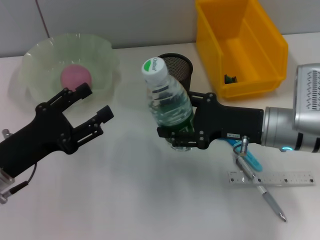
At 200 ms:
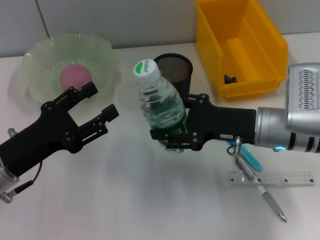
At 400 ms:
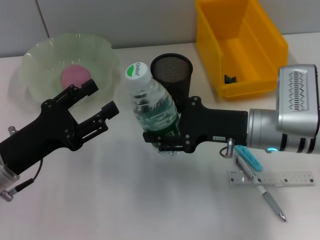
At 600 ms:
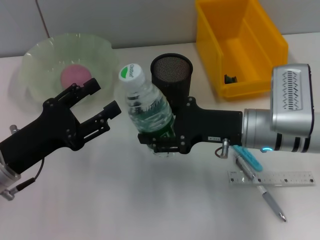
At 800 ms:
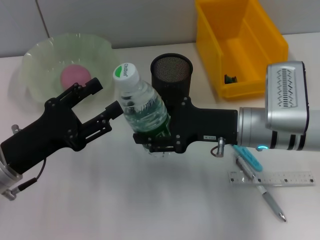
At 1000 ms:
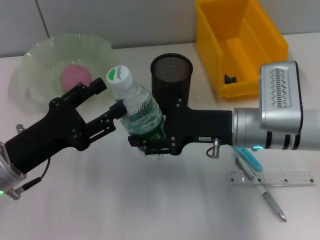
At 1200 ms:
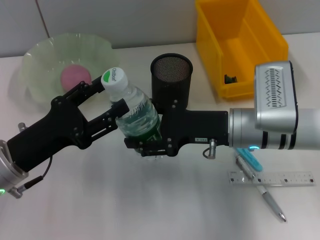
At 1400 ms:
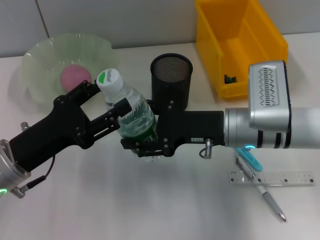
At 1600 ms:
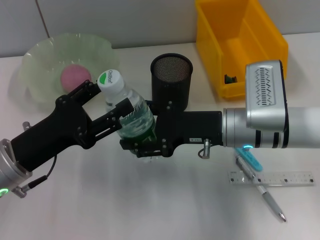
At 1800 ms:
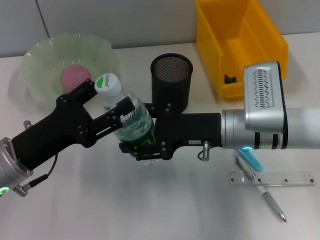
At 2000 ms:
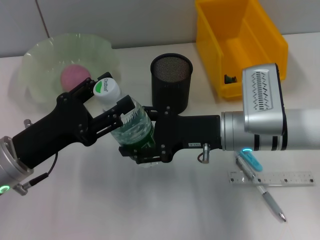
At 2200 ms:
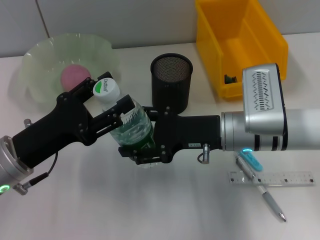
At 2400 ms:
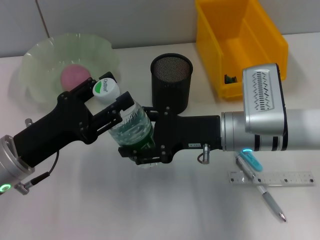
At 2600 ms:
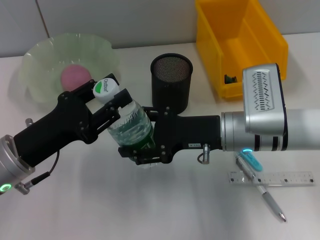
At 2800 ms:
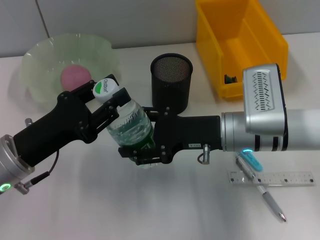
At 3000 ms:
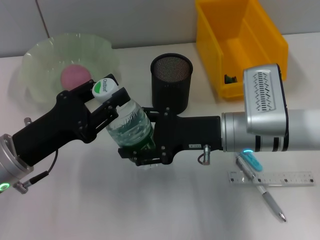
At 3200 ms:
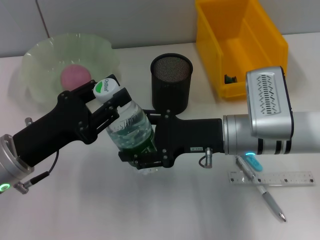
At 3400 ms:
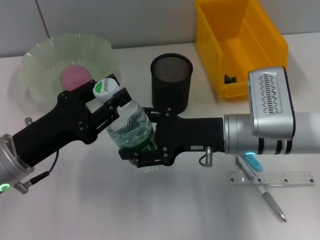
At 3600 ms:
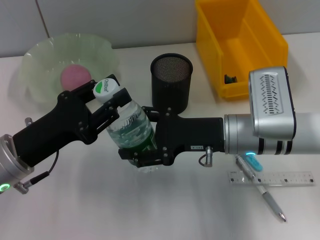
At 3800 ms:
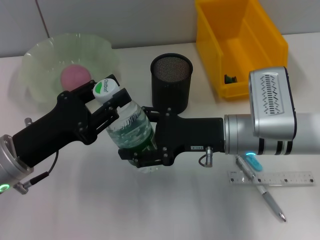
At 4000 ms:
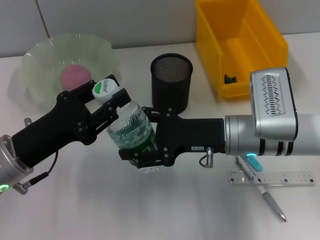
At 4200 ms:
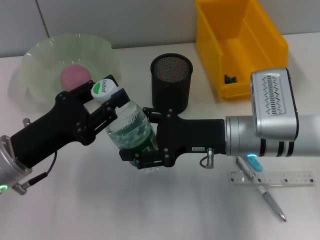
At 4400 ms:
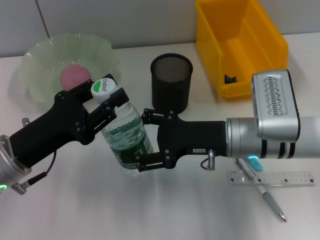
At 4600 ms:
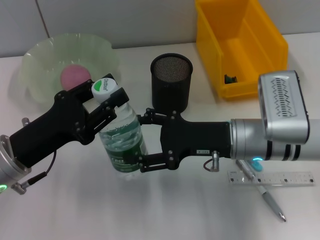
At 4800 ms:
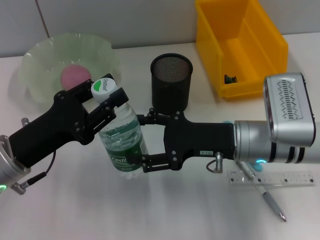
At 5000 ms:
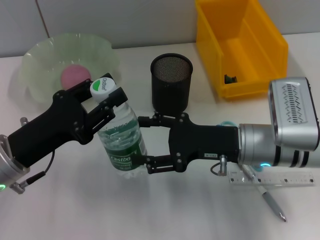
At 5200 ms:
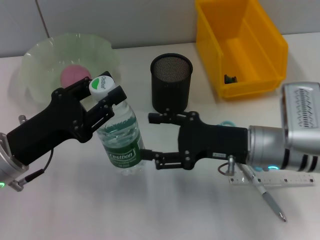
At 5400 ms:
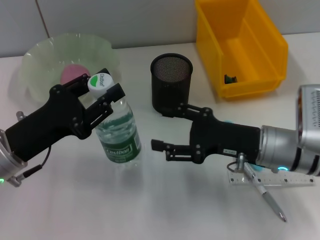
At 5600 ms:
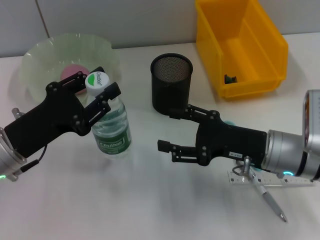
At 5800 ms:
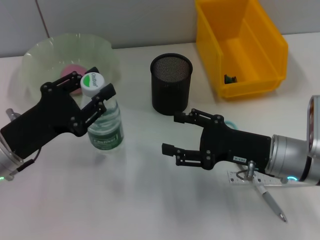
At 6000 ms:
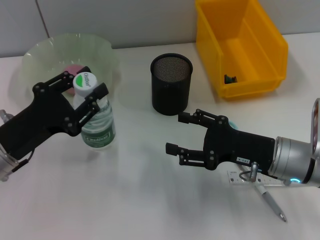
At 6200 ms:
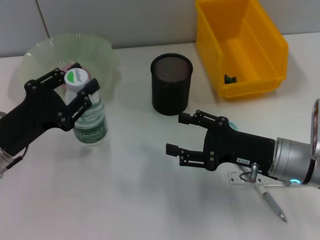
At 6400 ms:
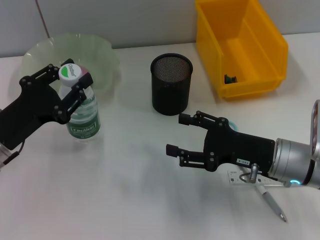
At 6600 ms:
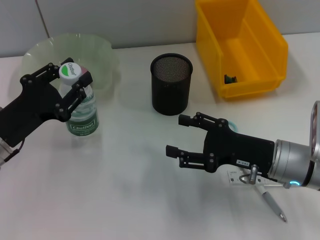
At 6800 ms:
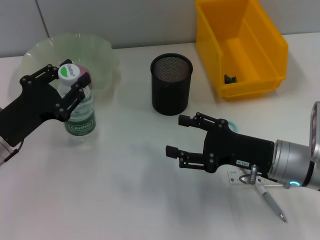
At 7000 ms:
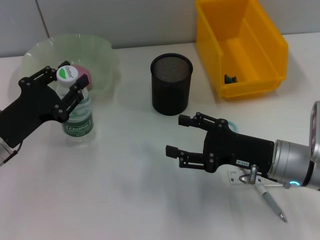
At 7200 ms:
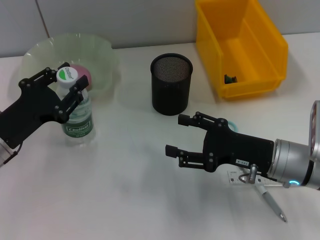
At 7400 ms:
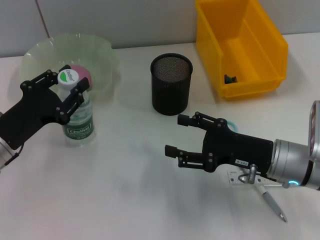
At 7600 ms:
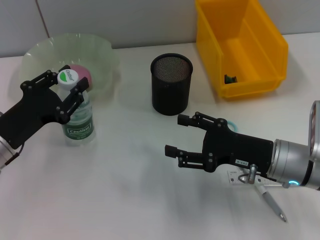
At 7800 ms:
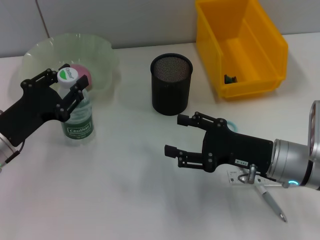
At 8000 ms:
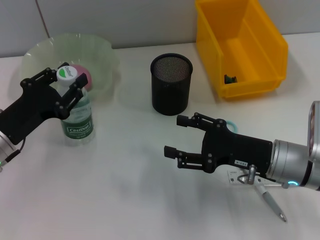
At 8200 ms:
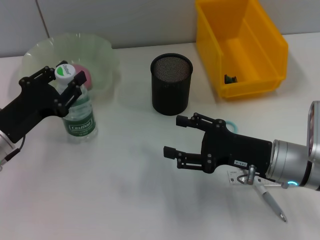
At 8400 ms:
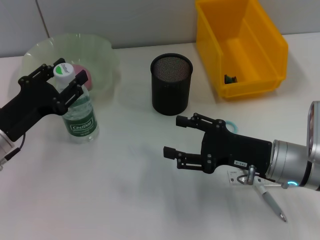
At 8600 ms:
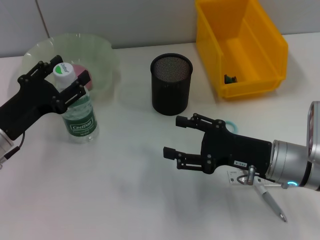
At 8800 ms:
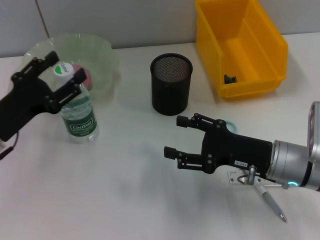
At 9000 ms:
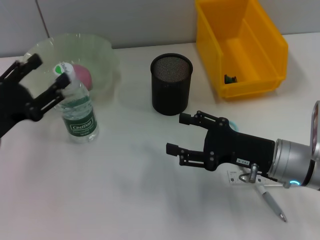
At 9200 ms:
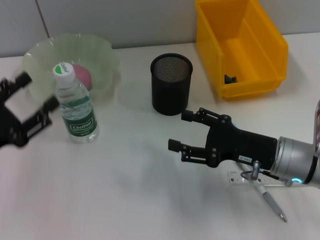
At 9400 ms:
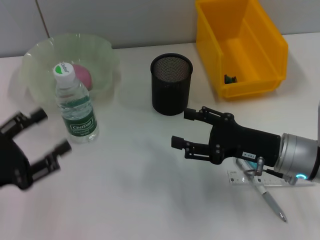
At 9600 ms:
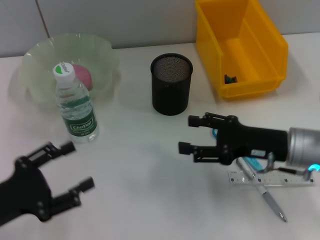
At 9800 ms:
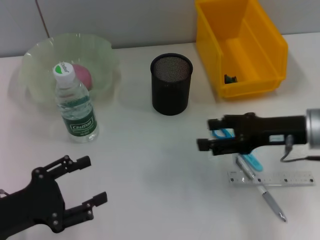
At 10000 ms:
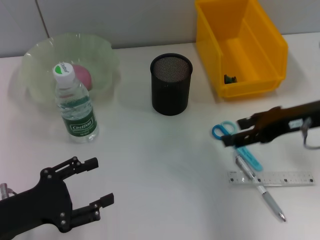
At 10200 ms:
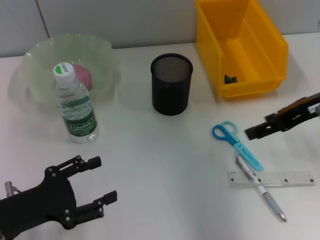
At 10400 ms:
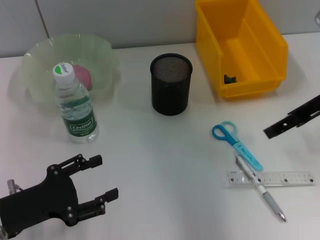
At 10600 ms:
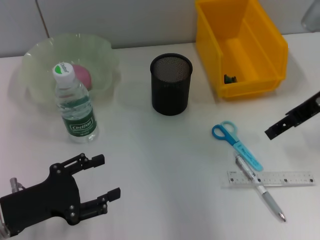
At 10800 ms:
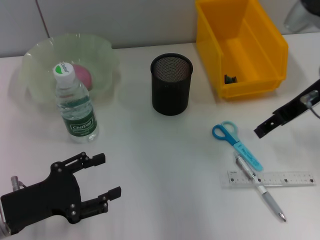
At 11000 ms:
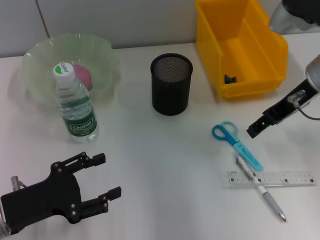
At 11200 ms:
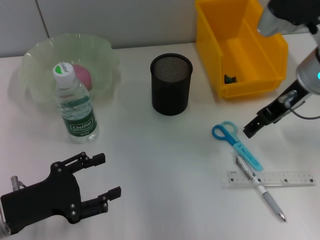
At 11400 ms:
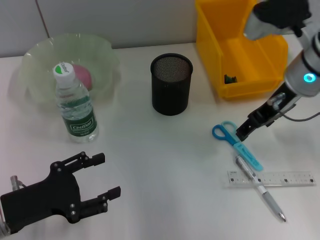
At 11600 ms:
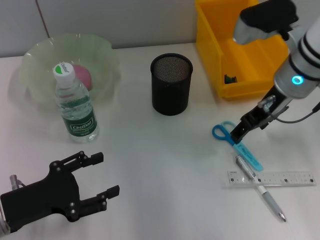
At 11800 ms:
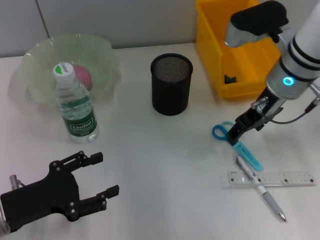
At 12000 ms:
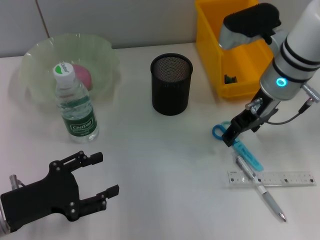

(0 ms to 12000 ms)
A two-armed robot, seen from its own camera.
Step, 0 ms - 4800 ms: Pass the water bottle from the right hand to the left hand.
Step, 5200 ms - 8800 ms: Place the water bottle on the table with the left hand.
0 ms - 1600 ms: The right gripper shifts about 5 cm to the left.
1600 ms - 3000 ms: The left gripper closes its fingers.
3000 ms - 4400 ms: Both grippers stay about where they are.
4400 ms - 6000 ms: The right gripper goes some 5 cm to the right.
6000 ms - 7600 ms: The grippers make only small movements.
7600 ms - 9000 ms: The left gripper opens up.
9000 ms - 10400 ms: The left gripper moves backward, roughly 5 cm, while the right gripper moves upward, forward and to the right, about 20 cm.
10400 ms - 12000 ms: The right gripper heads to the left and forward, covering about 10 cm.

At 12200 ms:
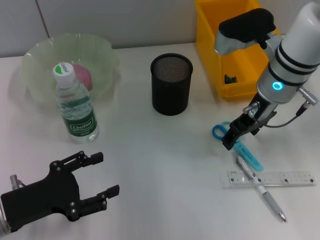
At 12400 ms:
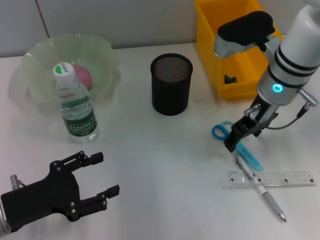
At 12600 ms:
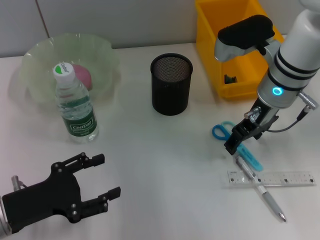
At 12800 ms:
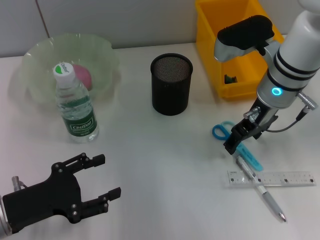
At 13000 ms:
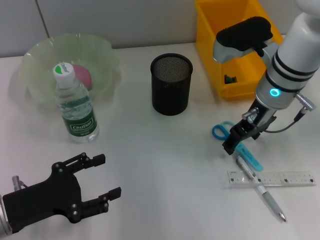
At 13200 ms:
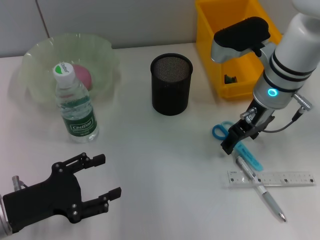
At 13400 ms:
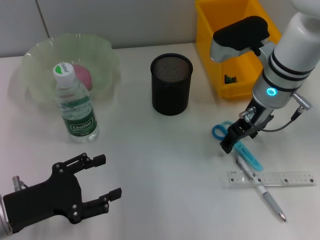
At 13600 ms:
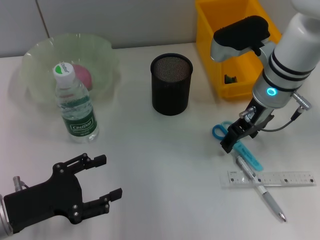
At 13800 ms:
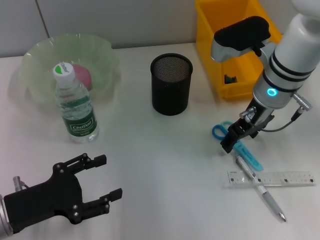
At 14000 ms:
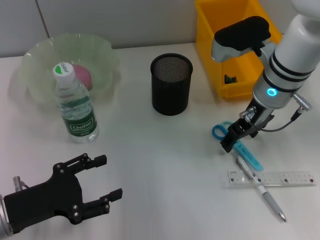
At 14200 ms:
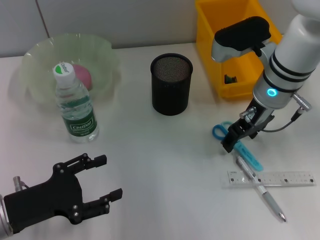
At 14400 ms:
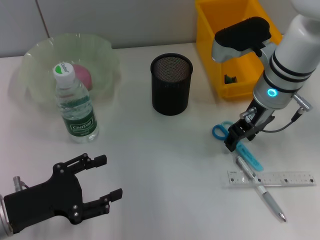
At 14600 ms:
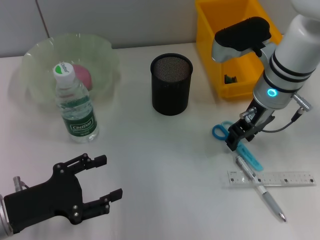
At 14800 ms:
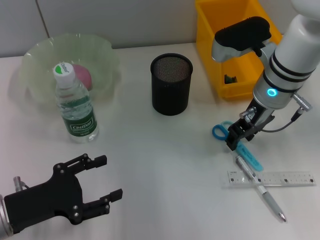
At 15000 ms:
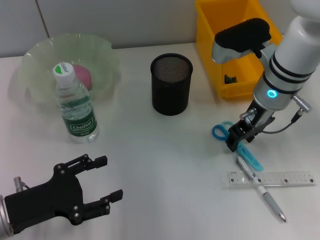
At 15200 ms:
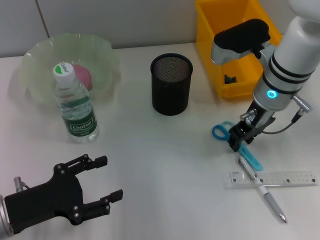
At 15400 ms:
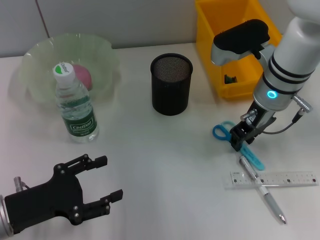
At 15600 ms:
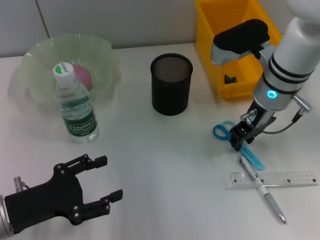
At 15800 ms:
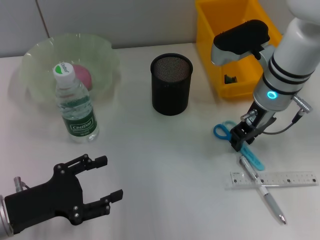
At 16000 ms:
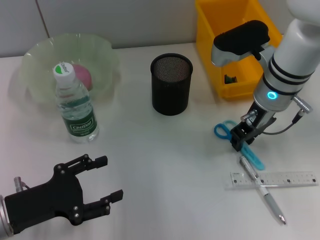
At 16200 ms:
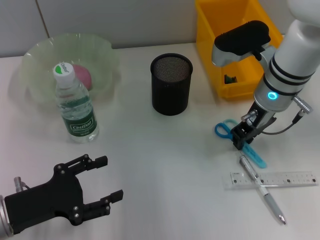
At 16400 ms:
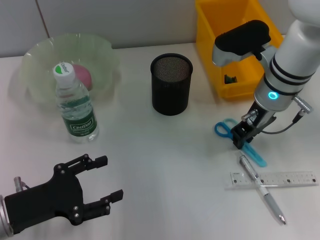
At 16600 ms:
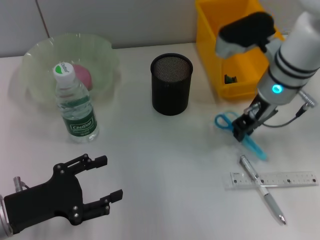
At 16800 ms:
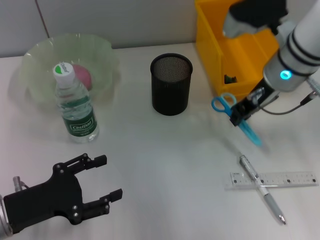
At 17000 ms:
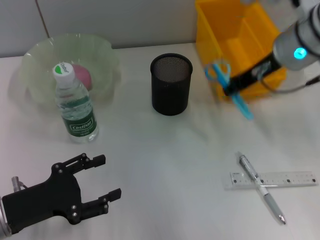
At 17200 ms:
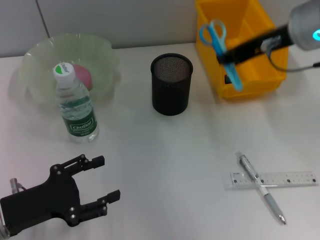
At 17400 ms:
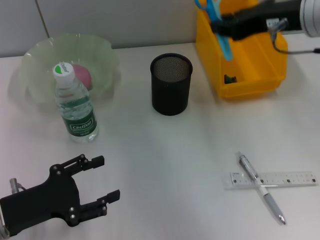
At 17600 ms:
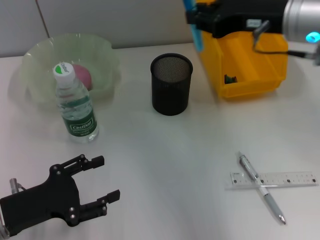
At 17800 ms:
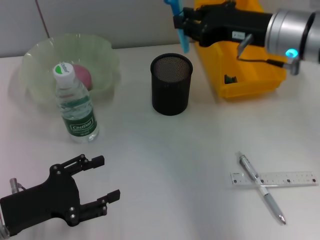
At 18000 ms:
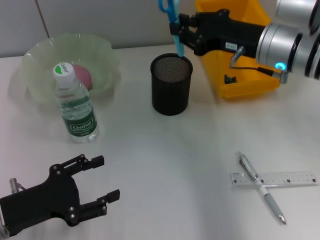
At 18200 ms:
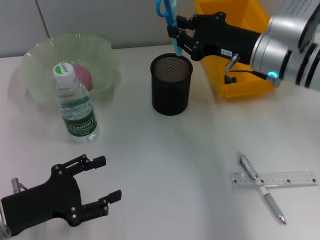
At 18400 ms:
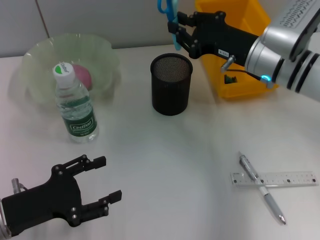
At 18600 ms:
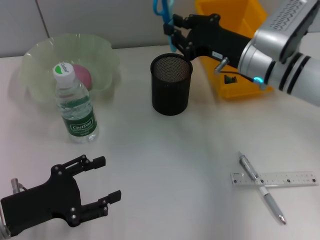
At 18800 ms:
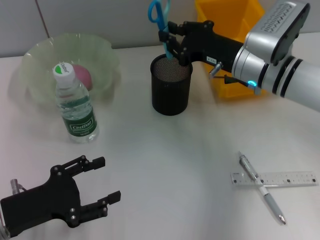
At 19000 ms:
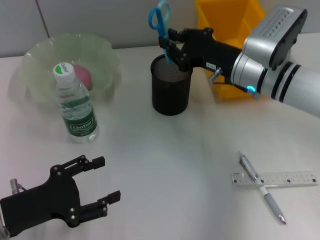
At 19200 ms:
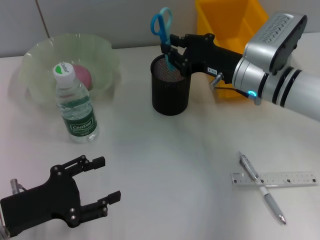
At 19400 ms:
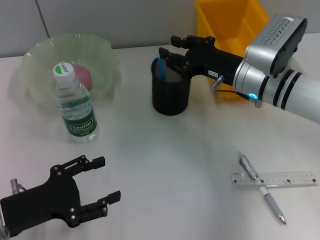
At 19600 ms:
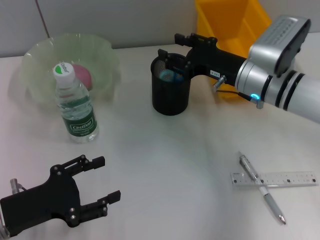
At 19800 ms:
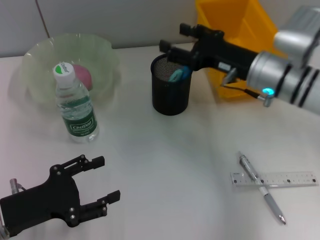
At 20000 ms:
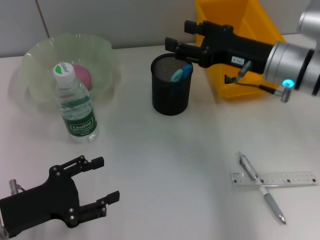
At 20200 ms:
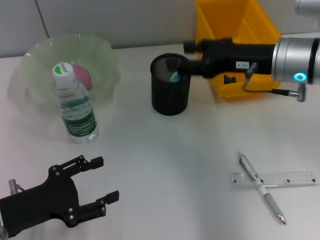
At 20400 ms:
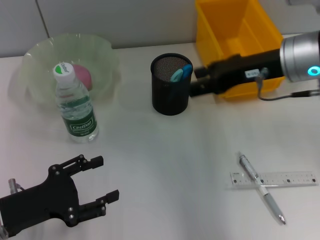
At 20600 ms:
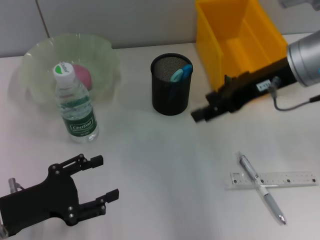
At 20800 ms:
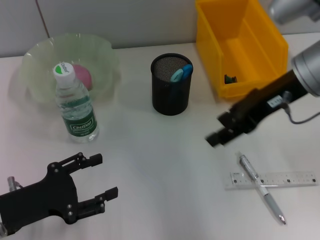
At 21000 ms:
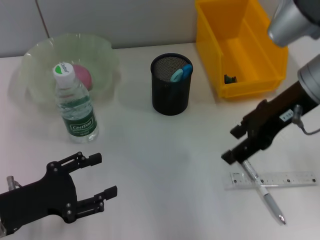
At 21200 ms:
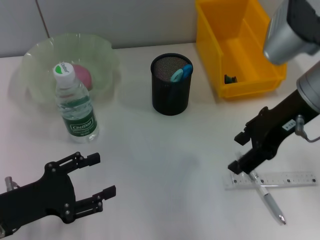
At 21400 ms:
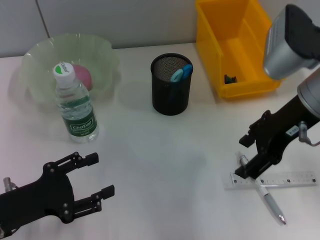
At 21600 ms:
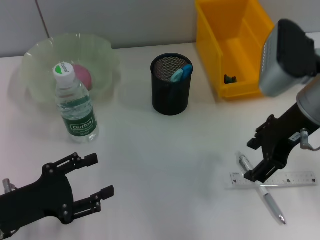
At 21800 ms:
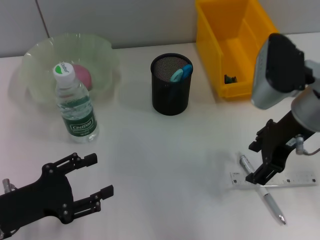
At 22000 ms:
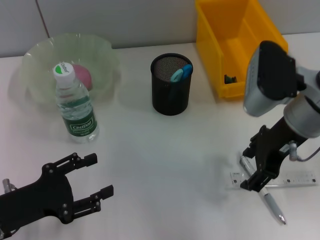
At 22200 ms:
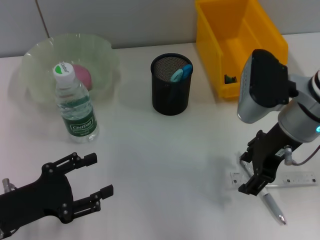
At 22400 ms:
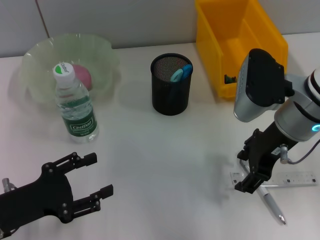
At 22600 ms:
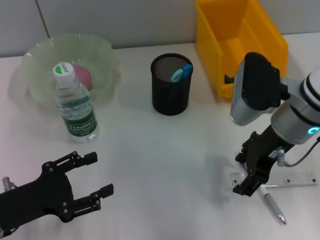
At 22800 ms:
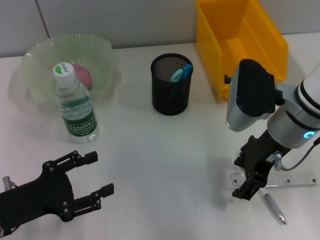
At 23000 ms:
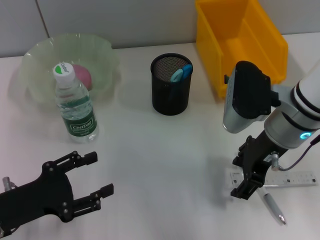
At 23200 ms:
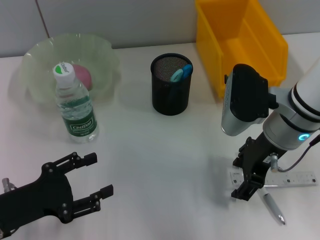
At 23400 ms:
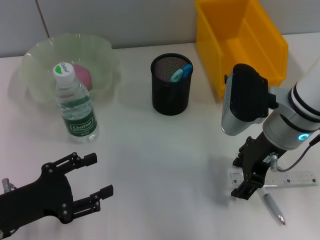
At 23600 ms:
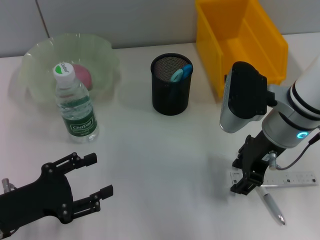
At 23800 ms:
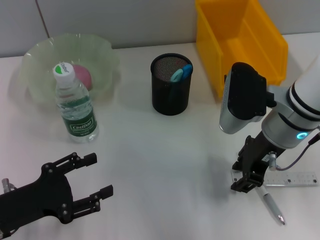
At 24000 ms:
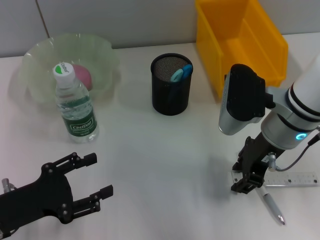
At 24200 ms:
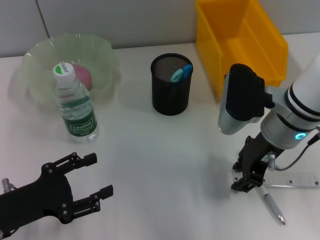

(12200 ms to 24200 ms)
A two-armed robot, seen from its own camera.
Step, 12200 ms - 16000 ms: Grab the blue scissors with the right hand.
Step, 16400 ms - 19600 ms: Place the blue scissors into the pen holder with the right hand.
Step, 20000 ms - 24000 ms: Grab the ruler with the right hand.
12200 ms - 13800 ms: The two grippers keep their place.
13800 ms - 15200 ms: The right gripper closes.
15200 ms - 16600 ms: The right gripper closes its fingers.
16600 ms - 18200 ms: The right gripper travels upward and back again, about 10 cm each way.
18200 ms - 19800 ms: The right gripper opens.
19800 ms - 21200 ms: The right gripper heads upward, covering roughly 10 cm.
21200 ms - 22600 ms: The right gripper shifts roughly 5 cm downward.
22600 ms - 24200 ms: The right gripper closes.
